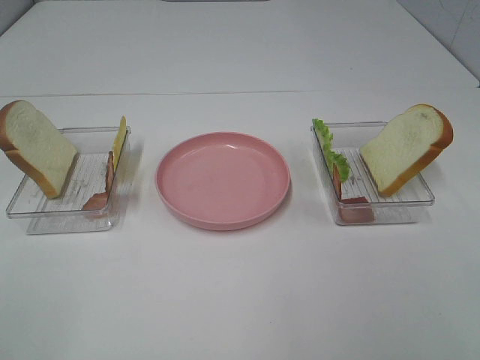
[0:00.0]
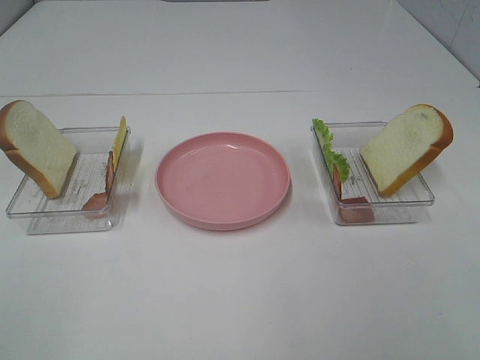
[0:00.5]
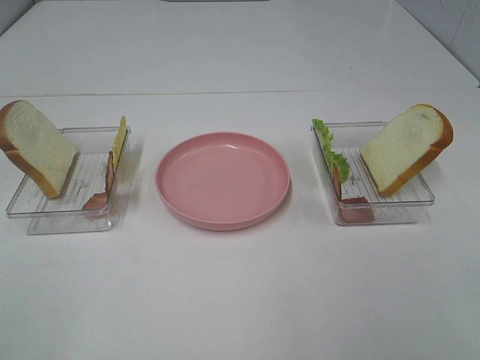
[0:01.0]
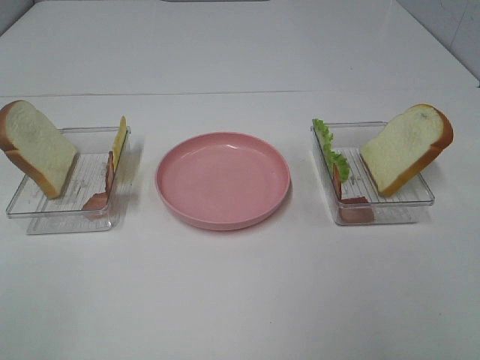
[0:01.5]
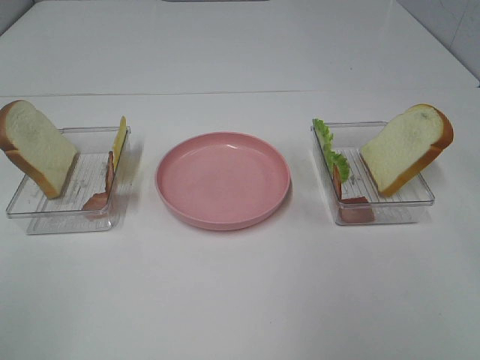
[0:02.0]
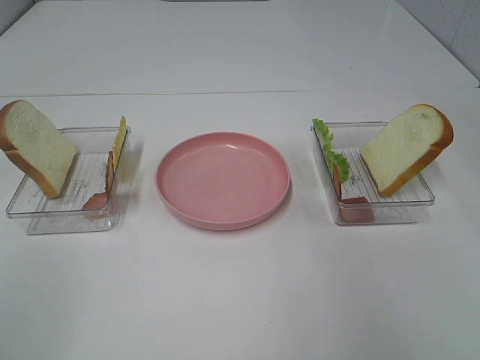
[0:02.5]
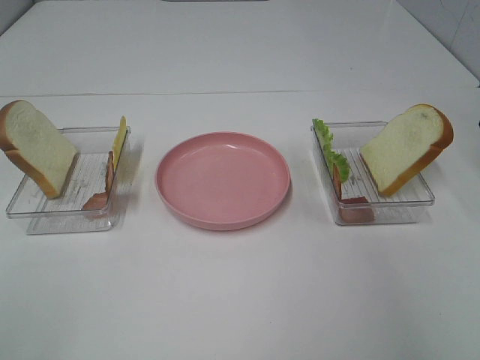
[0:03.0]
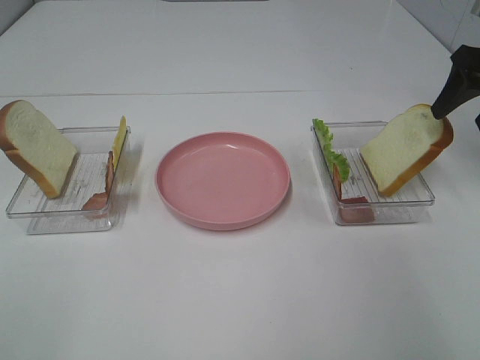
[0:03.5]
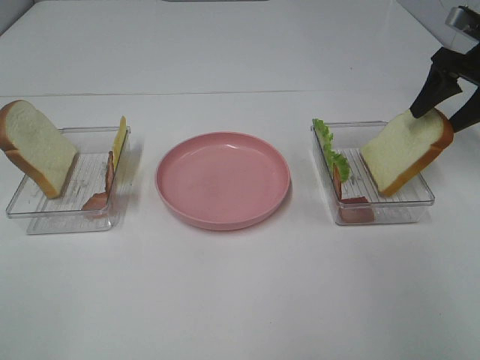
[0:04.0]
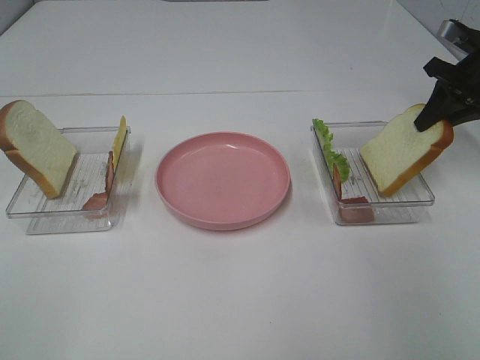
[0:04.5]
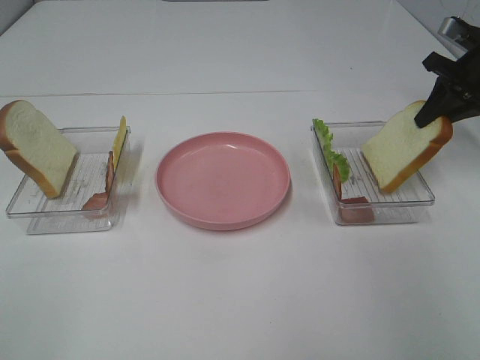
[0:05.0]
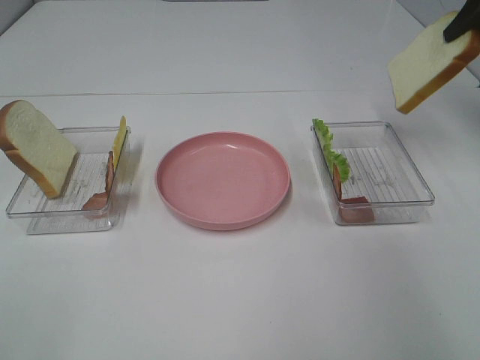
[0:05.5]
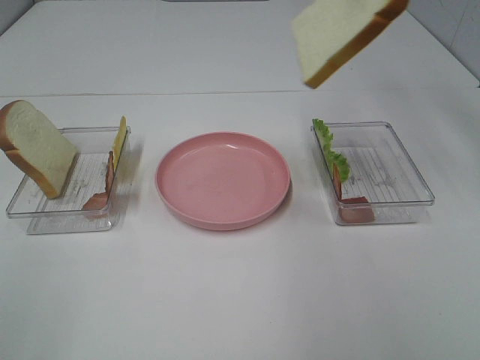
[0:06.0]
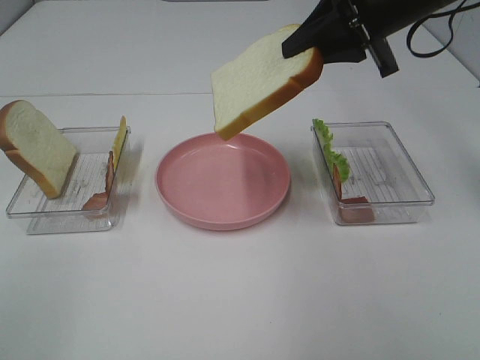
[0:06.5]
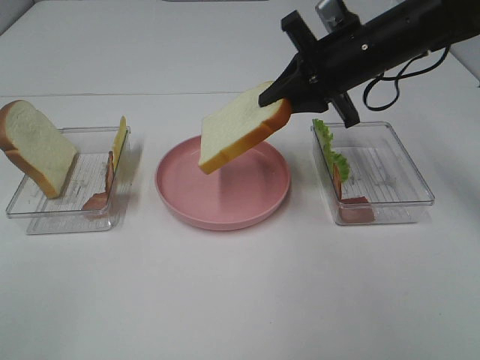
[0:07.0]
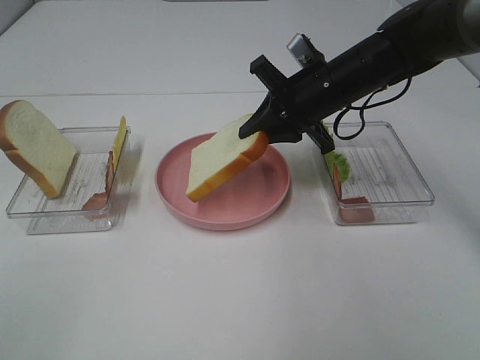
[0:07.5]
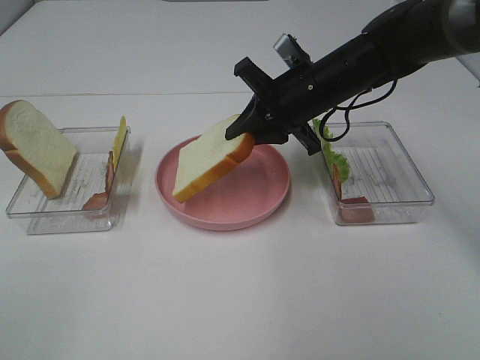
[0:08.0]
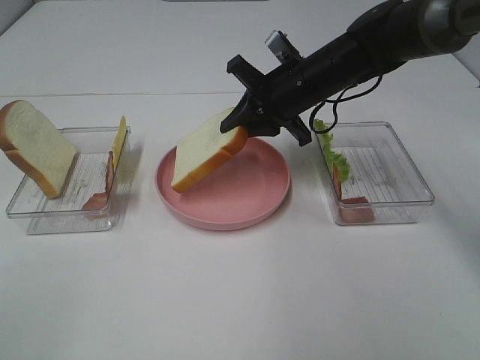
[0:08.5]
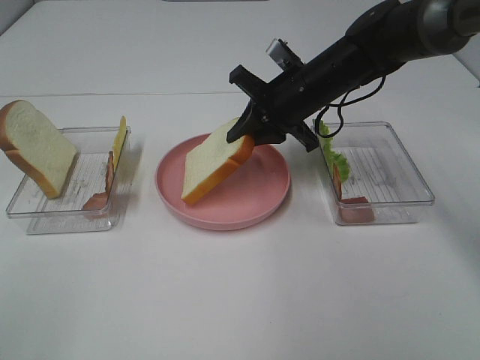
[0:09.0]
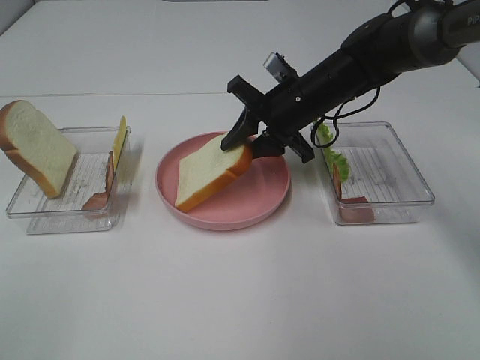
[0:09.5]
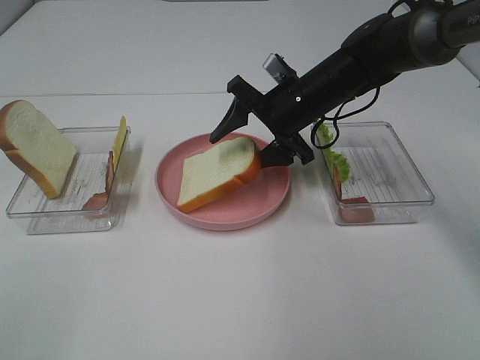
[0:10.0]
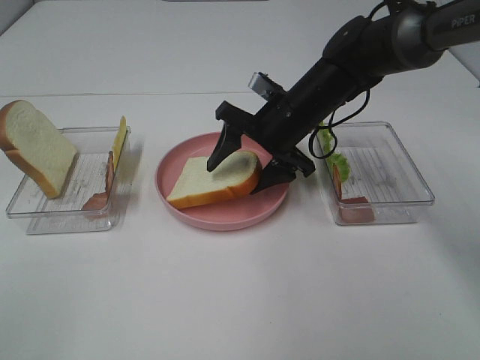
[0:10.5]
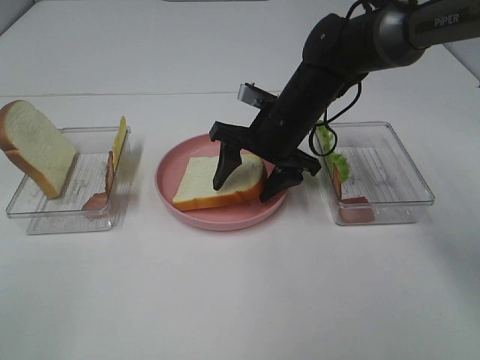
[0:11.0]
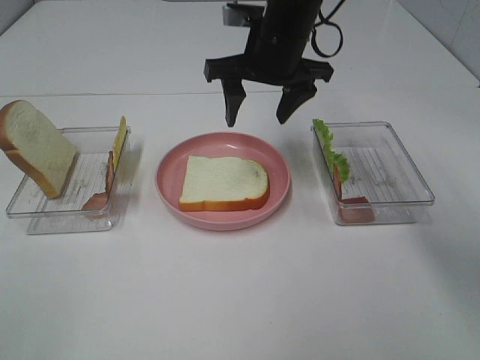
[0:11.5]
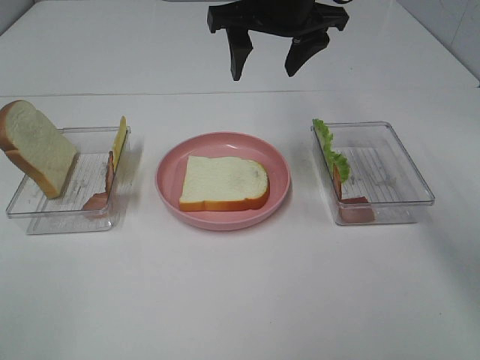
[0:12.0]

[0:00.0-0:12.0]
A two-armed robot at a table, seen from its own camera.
Task of the whole recording: Make sandwiches.
Step, 0:00.0 to 0:04.5: Right hand:grab the bread slice.
Step, 0:05.0 to 0:11.0: Right hand:place the bread slice on the plate.
0:02.0 to 0:04.0: The right gripper goes about 30 cm forward and downward.
0:04.0 to 0:06.0: The right gripper travels upward and to the left by roughly 20 cm, and closes its fingers.
0:06.0 to 0:08.0: The right gripper shifts about 25 cm downward and to the left.
0:08.0 to 0:10.0: The right gripper opens its fingers.
0:10.0 to 0:12.0: The right gripper heads upward, covering roughly 15 cm.

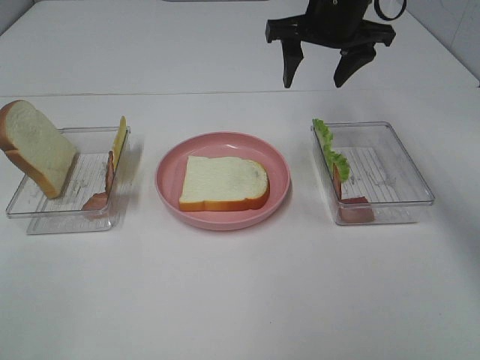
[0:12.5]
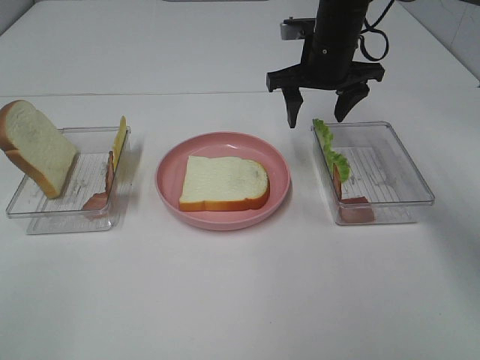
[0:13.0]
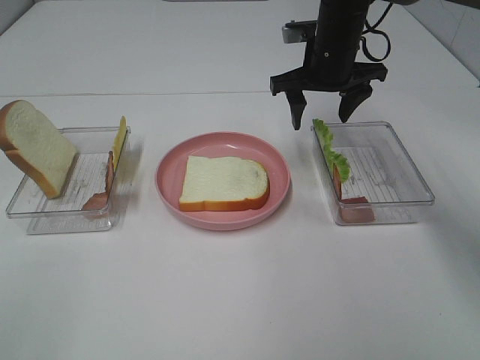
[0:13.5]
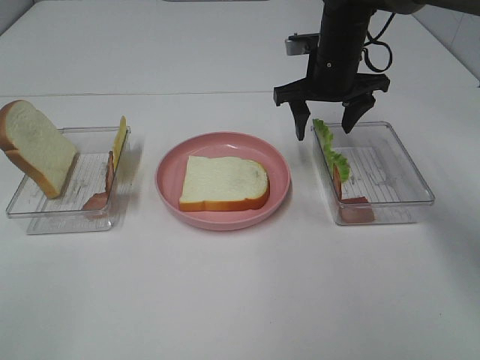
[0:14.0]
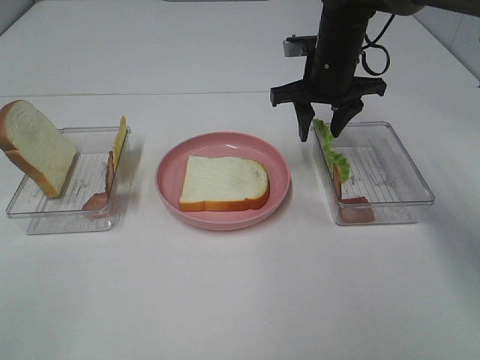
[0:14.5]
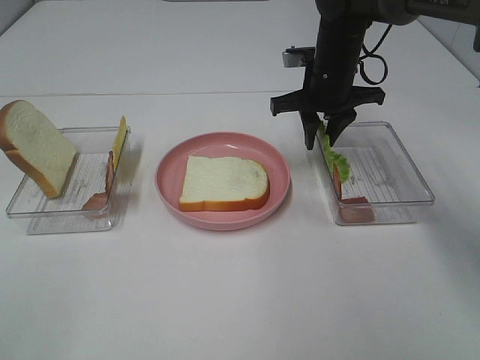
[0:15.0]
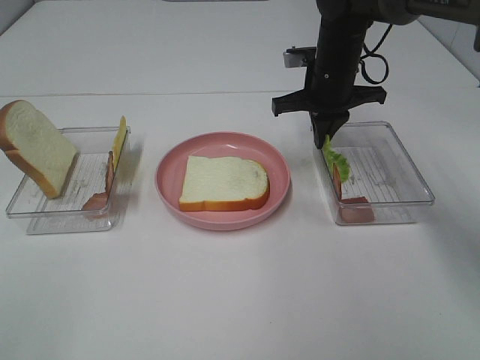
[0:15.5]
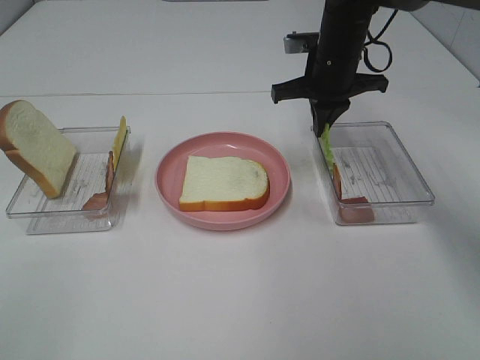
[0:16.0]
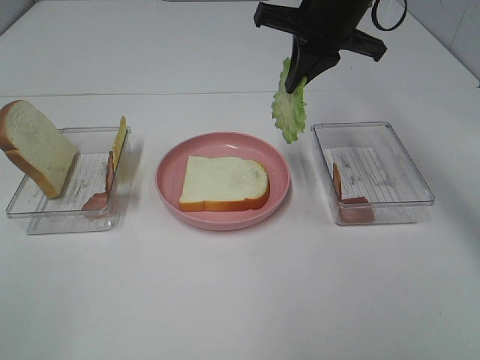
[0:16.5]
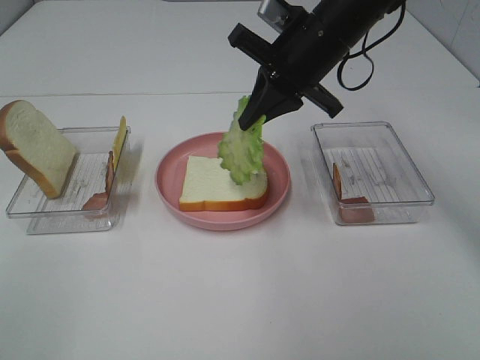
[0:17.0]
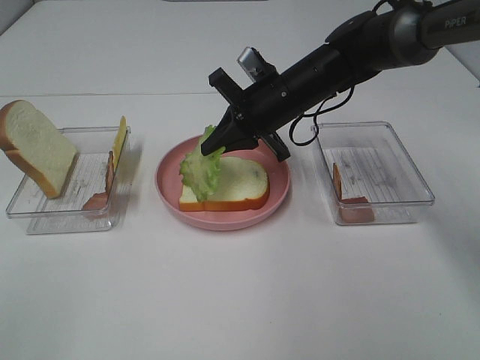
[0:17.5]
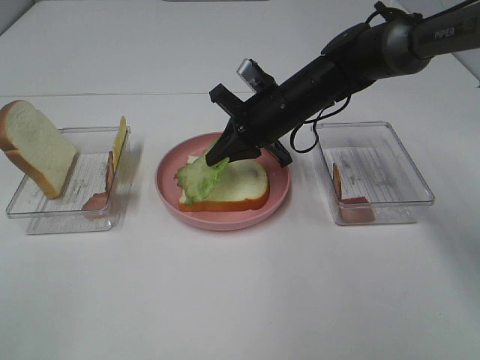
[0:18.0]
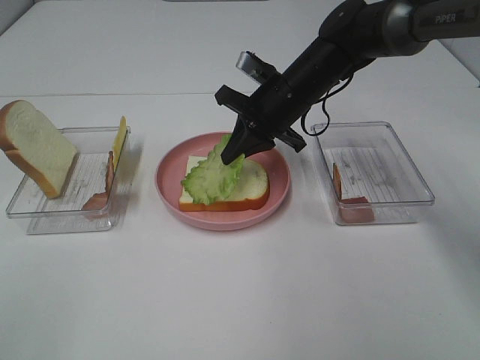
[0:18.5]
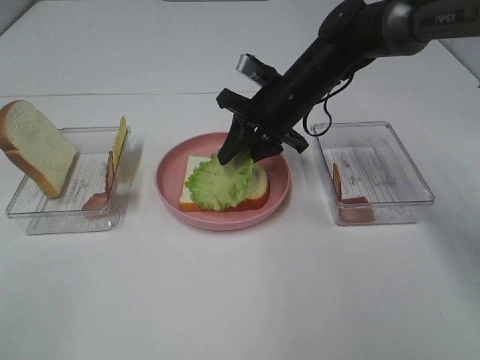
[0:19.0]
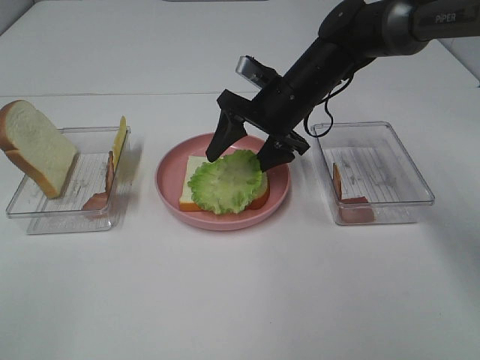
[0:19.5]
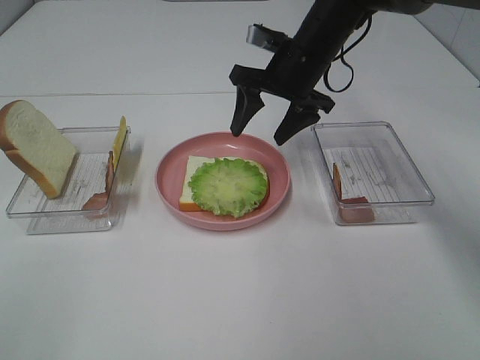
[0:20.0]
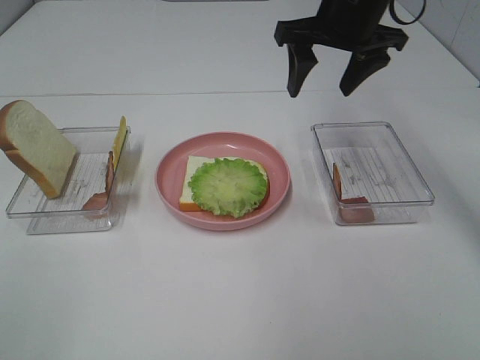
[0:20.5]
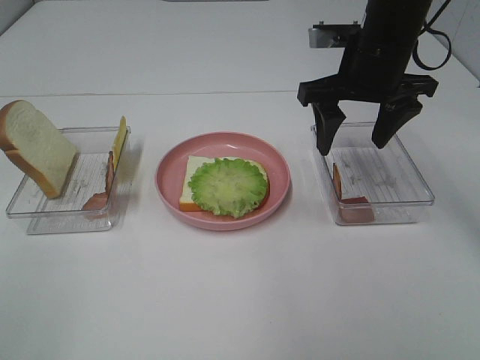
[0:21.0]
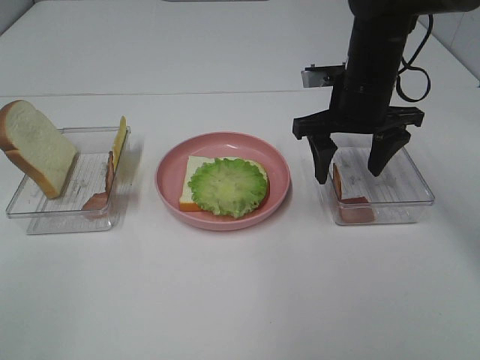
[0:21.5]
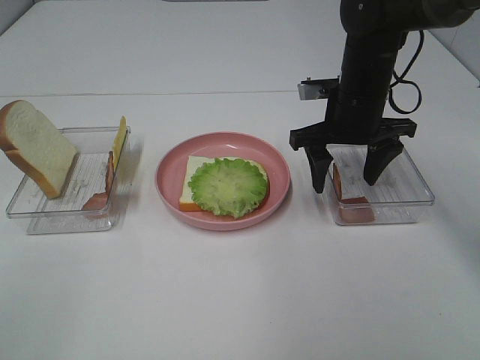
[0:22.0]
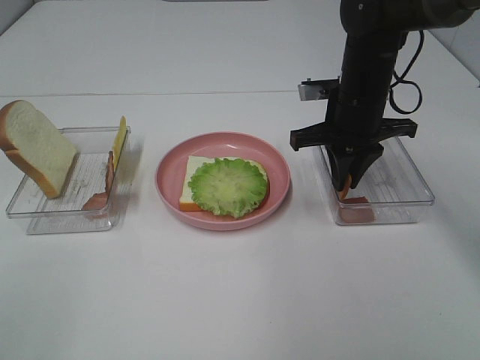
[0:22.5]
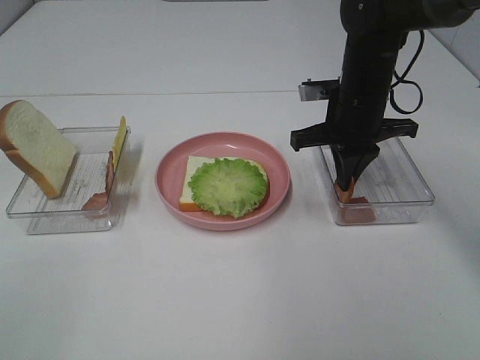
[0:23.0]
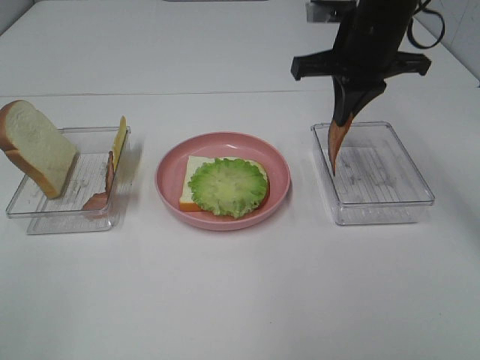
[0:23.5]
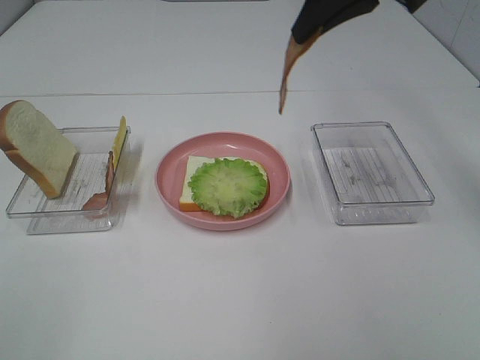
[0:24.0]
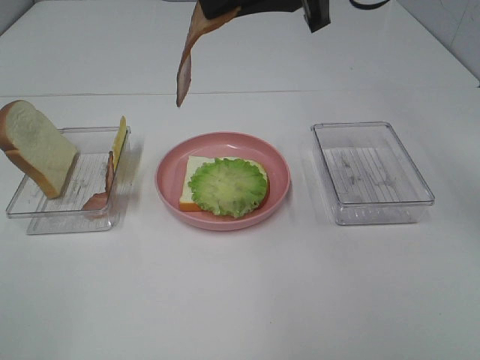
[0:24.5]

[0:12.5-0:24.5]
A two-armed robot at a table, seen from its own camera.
Task of the whole recording: Make sandwiches.
Step, 0:12.5 to 0:15.5: Right hand:grab the lettuce slice.
Step, 0:16.0 to 0:19.5: Right hand:place the lettuce slice on the bread slice.
Step, 0:20.0 to 0:22.5: Right hand:grab the bacon.
0:12.5 to 0:14.5: The right gripper goes roughly 10 cm downward.
0:14.5 to 0:16.5: The right gripper travels upward by approximately 10 cm, and closes.
0:16.5 to 0:18.5: The right gripper moves downward, some 15 cm.
0:18.5 to 0:20.5: The right gripper goes approximately 15 cm upward and to the right, and opens its fingers.
0:20.5 to 0:22.5: The right gripper goes approximately 10 cm downward, and closes up.
0:22.5 to 0:24.5: The right gripper shifts about 20 cm upward.

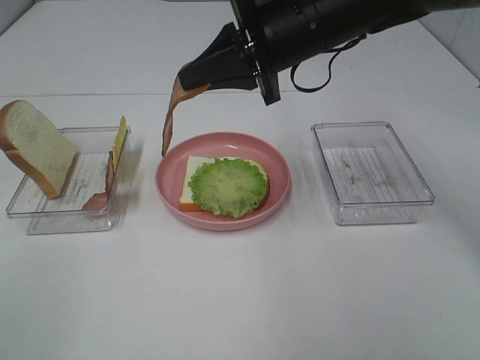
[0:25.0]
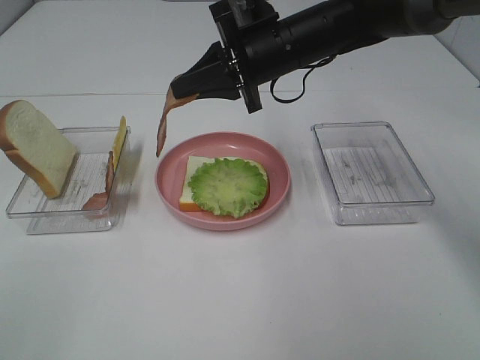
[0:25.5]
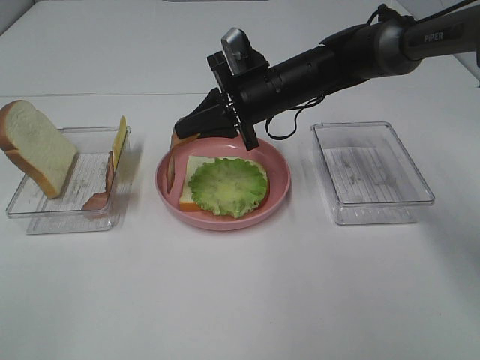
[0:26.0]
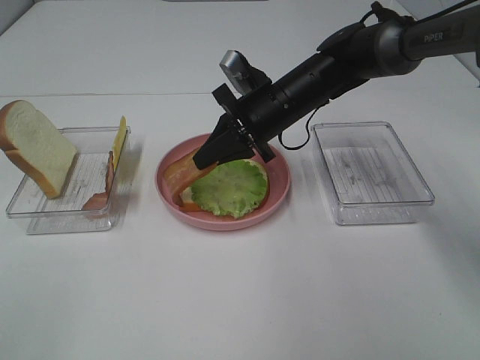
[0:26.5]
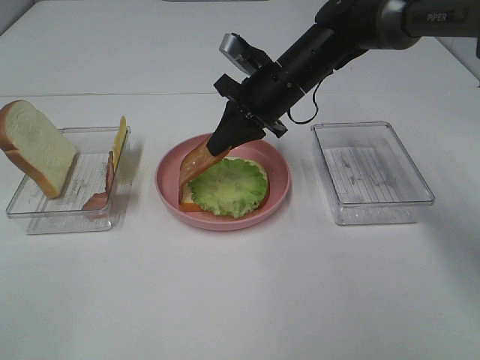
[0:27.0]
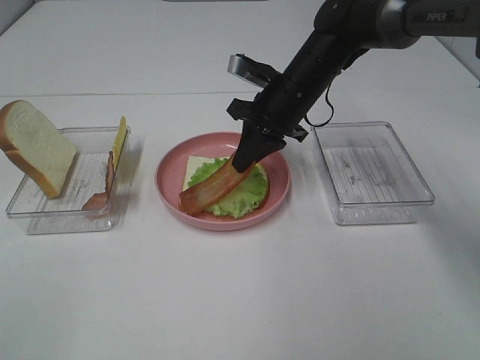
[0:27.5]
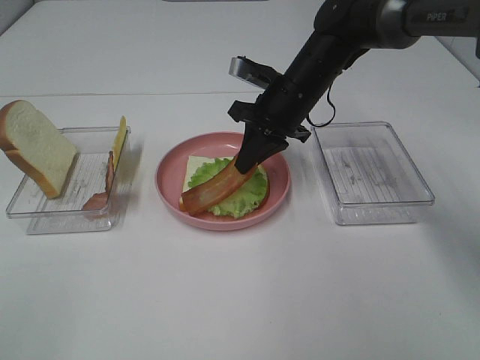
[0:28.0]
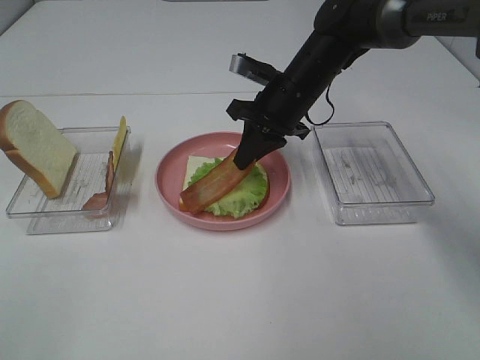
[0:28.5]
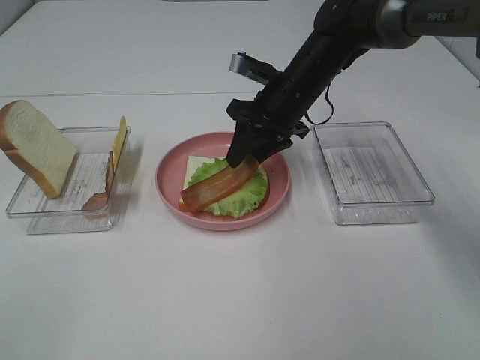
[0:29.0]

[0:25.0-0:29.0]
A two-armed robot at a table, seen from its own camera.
Task of the whole recording: Make sandwiches.
0:25.0 to 0:27.0: The right gripper travels downward and forward by roughly 10 cm.
0:27.0 to 0:29.0: The right gripper opens.
